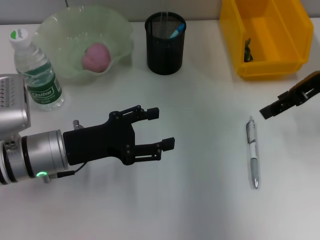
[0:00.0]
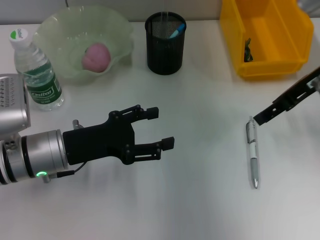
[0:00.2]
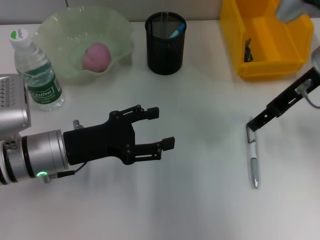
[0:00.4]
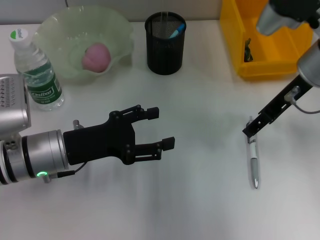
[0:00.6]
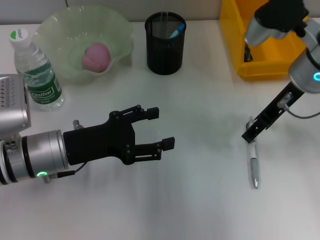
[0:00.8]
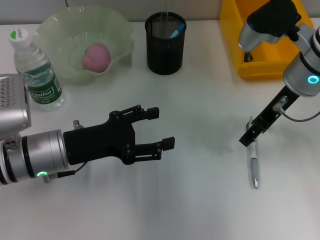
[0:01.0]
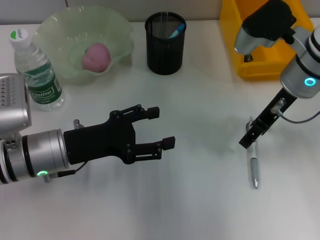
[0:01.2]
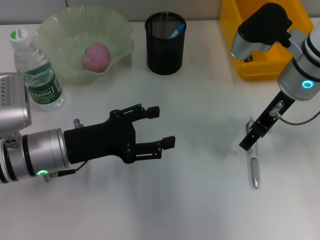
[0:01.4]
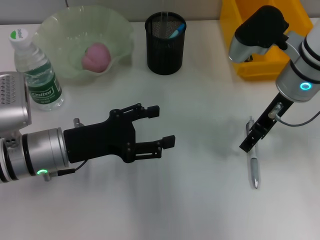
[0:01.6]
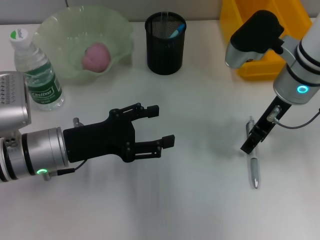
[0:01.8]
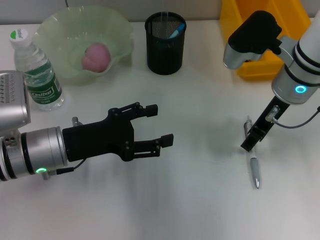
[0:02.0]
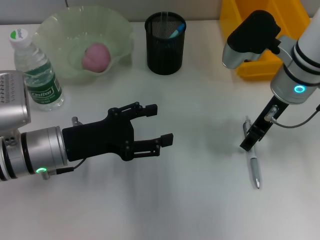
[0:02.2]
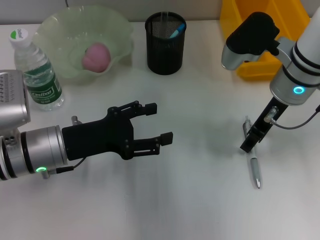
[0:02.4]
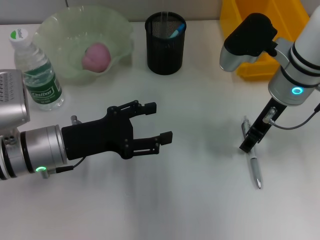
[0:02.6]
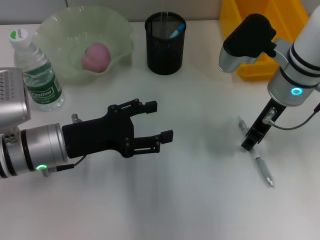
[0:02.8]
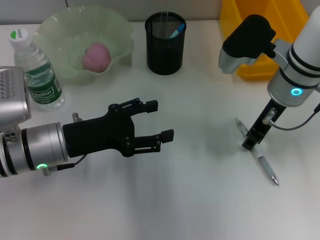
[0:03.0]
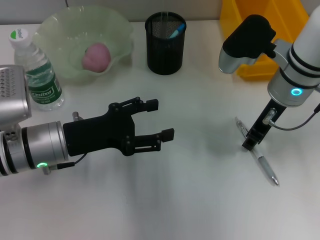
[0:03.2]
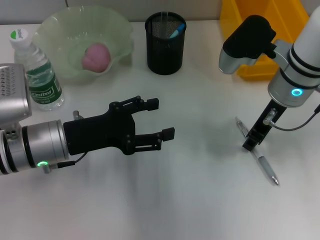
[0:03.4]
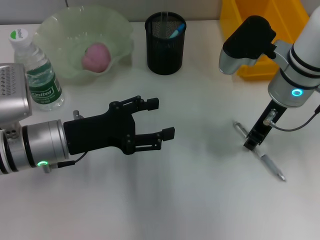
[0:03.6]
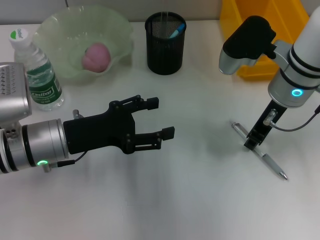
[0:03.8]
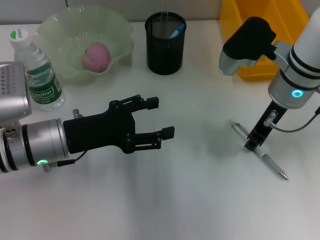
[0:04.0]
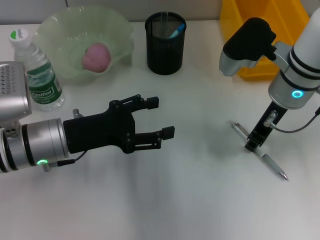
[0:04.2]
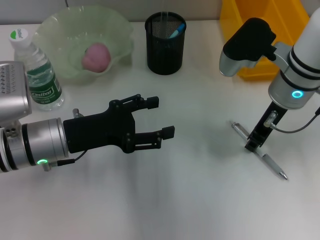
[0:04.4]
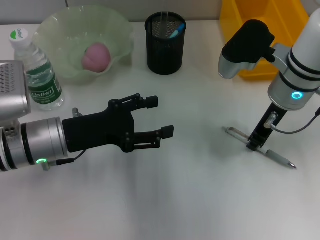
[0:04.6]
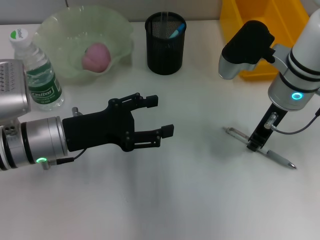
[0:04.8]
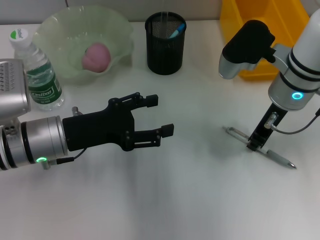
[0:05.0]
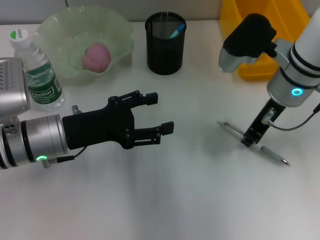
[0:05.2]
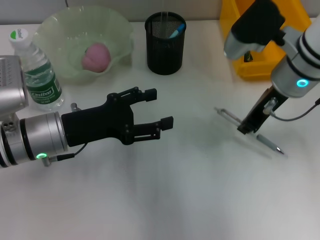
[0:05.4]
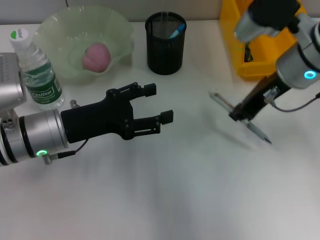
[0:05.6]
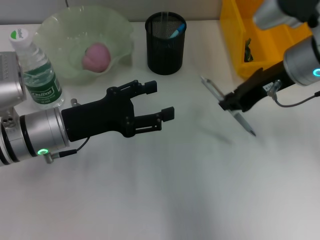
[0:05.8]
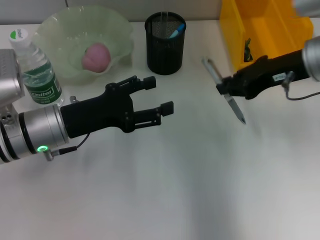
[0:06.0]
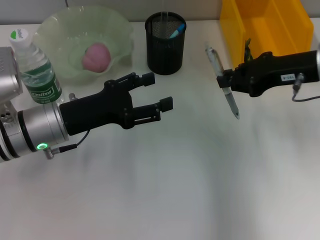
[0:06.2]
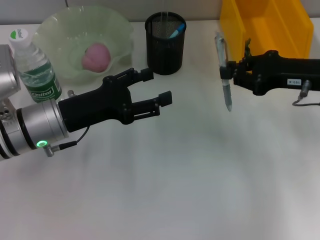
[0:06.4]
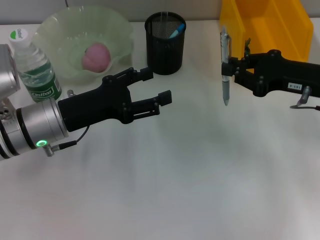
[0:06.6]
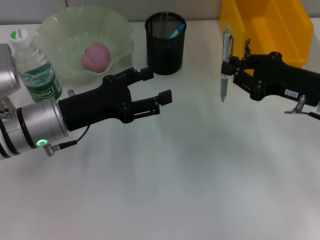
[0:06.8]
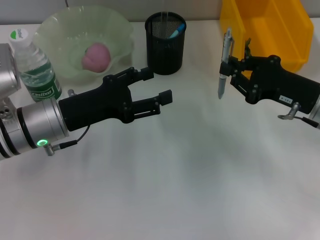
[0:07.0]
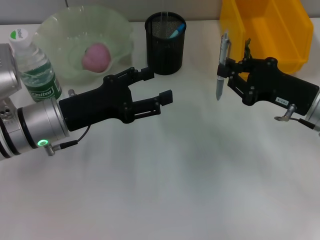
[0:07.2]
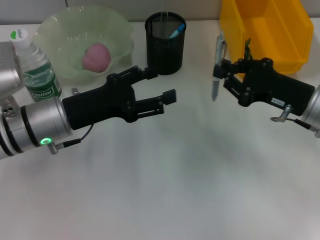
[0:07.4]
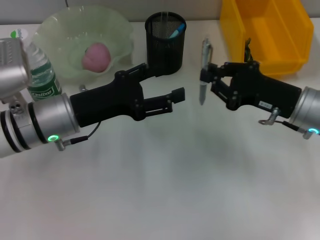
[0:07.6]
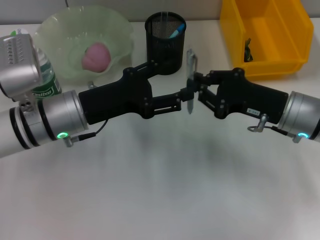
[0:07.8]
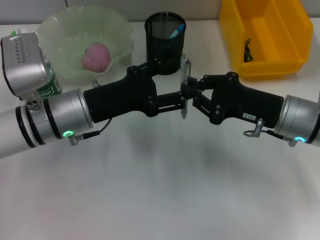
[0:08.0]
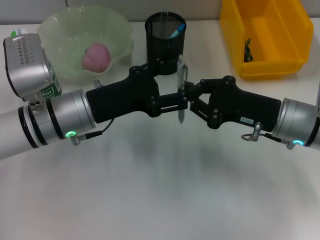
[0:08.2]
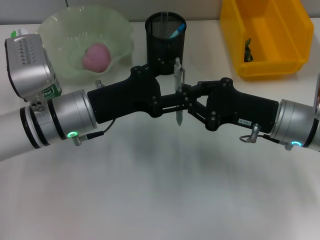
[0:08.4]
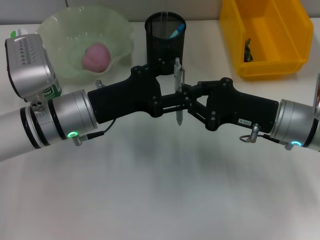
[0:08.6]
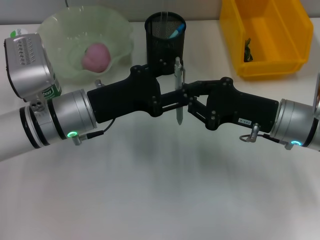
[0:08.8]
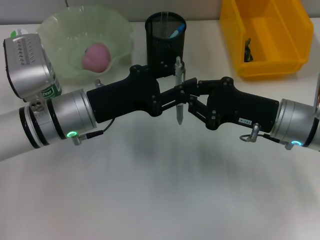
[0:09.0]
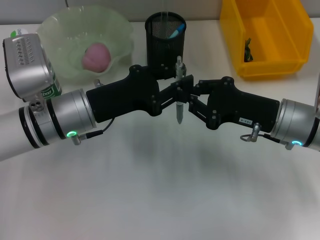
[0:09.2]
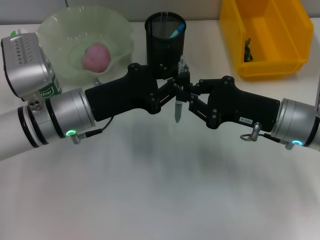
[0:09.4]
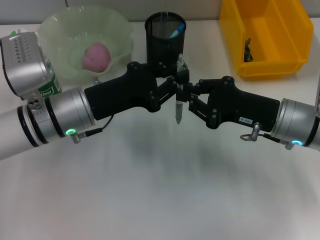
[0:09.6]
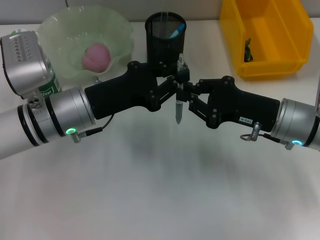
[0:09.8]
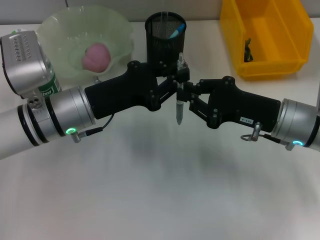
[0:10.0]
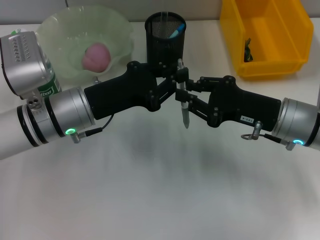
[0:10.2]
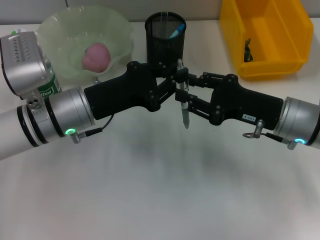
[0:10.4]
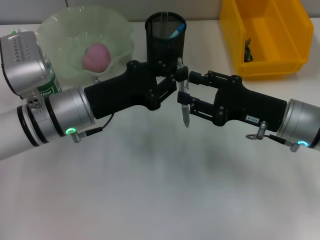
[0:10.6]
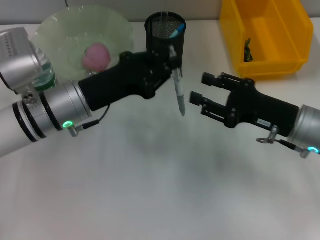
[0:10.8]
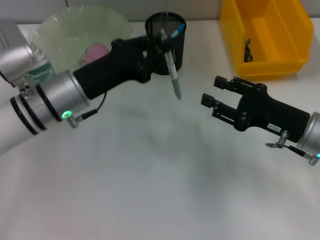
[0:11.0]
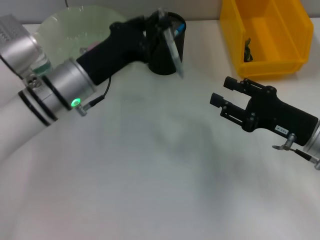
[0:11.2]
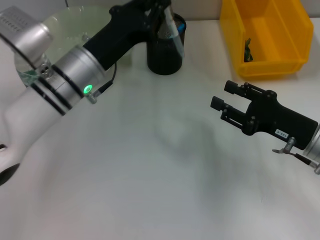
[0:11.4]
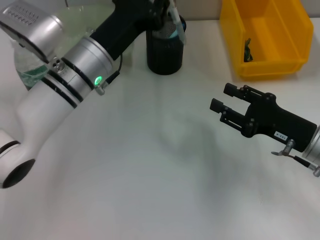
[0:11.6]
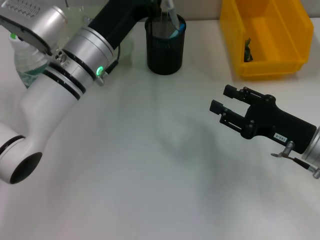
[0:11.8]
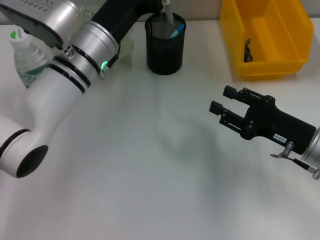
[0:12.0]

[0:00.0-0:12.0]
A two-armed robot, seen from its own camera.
Step, 0:00.0 to 0:04.8: Grab the gray spring-action pen with the right hand.
Step, 0:05.0 to 0:10.6: Pass the gray spring-action pen from the right hand to the left hand.
0:00.0 to 0:01.6: The right gripper is displaced to the left by about 10 cm.
0:01.6 to 0:03.0: The right gripper closes up.
0:03.0 to 0:04.4: Both grippers stay put.
0:04.4 to 0:06.0: The right gripper is displaced to the right by approximately 5 cm.
0:06.0 to 0:07.6: The right gripper travels downward by about 10 cm.
0:07.6 to 0:09.0: The grippers stay close to where they were, moving slightly.
0:09.0 to 0:10.4: The left gripper closes up.
0:10.4 to 0:12.0: The right gripper shifts by about 5 cm, and opens, while the left gripper goes approximately 5 cm forward.

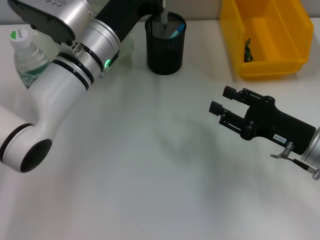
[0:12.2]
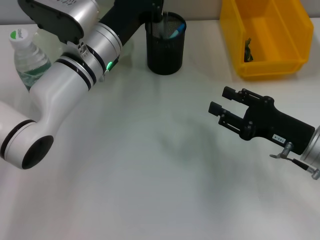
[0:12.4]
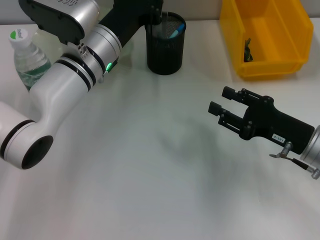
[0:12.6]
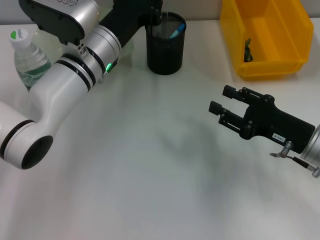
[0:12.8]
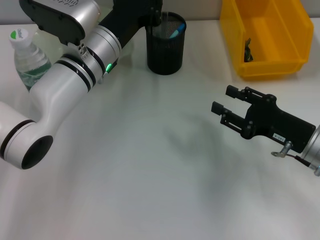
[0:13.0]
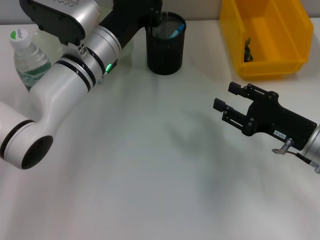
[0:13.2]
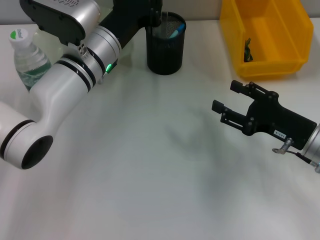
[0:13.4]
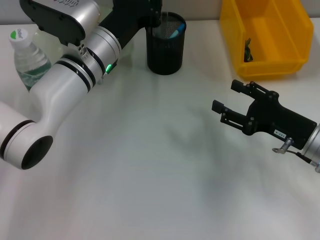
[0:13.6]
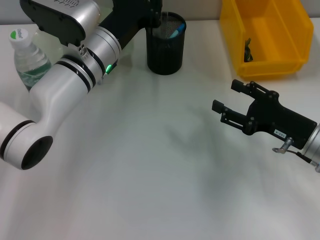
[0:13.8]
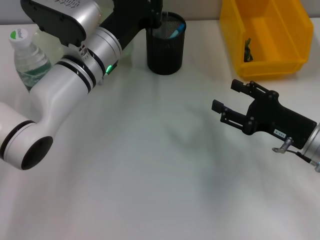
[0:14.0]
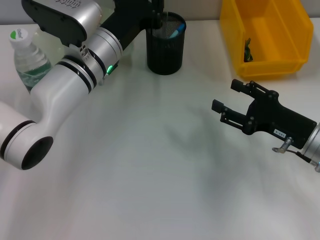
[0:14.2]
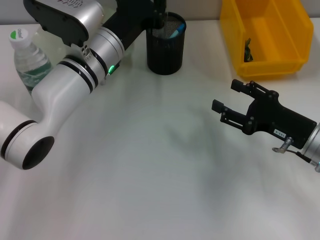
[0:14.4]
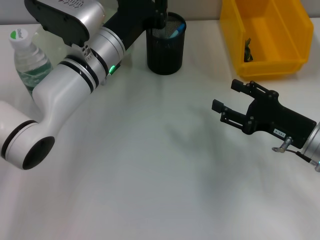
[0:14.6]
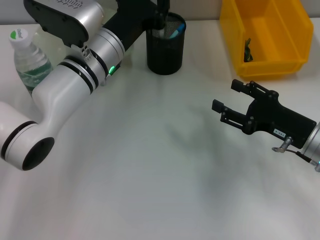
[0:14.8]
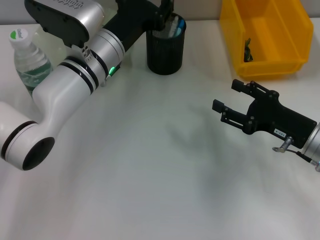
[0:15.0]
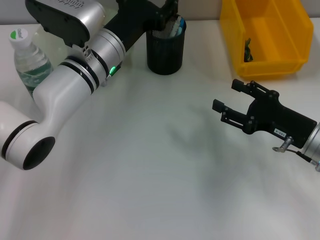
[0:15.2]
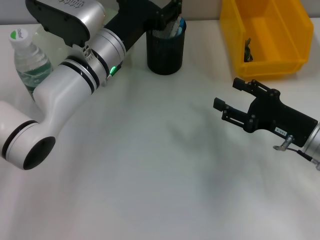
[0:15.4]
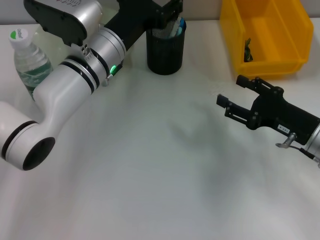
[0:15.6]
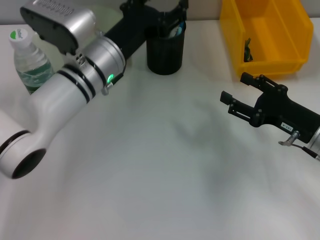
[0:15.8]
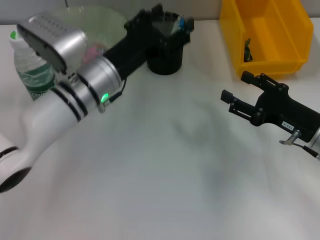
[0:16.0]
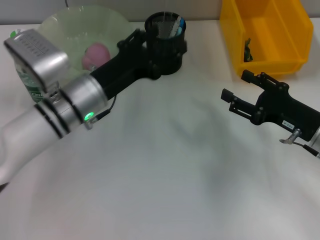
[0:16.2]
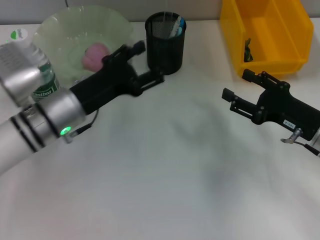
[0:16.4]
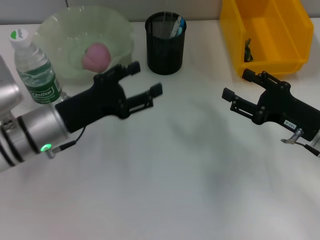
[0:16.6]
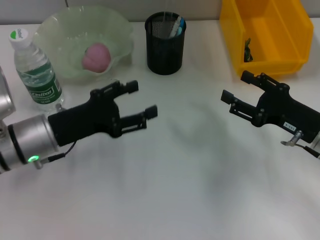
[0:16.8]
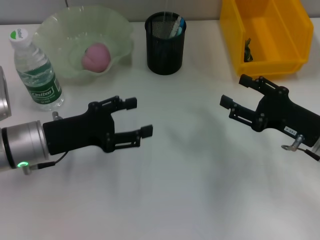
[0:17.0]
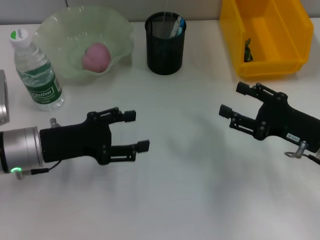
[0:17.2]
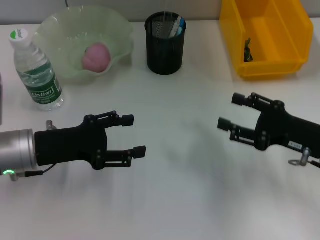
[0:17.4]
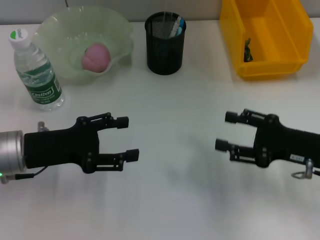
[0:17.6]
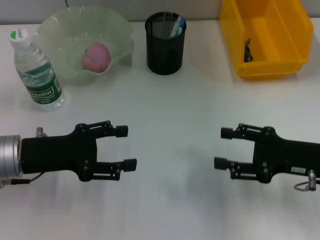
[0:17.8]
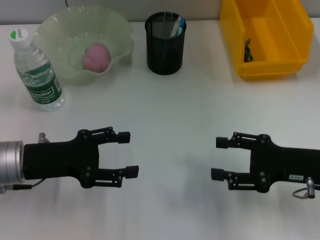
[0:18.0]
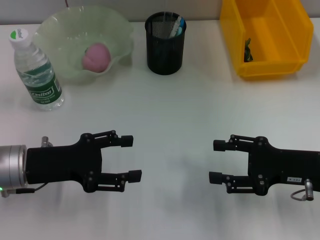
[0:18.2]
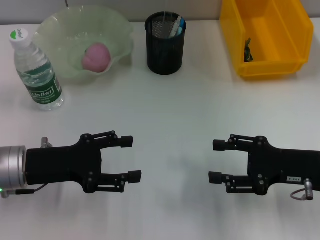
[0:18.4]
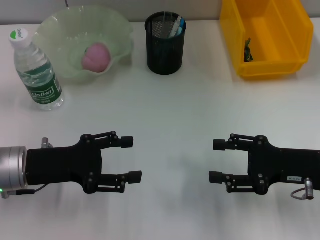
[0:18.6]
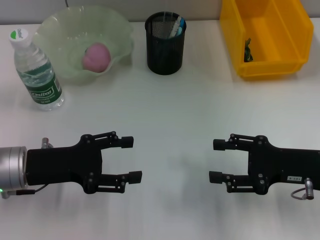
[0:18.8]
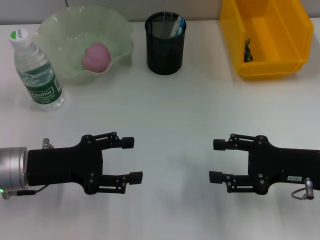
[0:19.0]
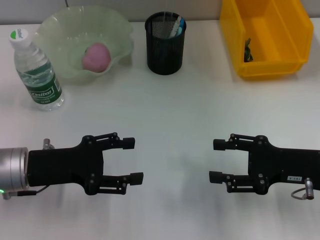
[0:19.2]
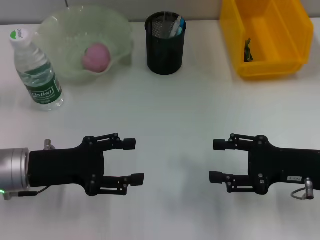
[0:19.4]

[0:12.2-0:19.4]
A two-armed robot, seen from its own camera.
Step, 0:12.2 to 0:15.4: Place the gray spring-action pen into the pen holder with the left hand.
0:12.2 to 0:13.6: There are only small adjustments of the grippers.
0:13.6 to 0:15.0: The two grippers keep their place.
0:15.0 to 0:16.6: The left gripper moves to the left and backward, about 10 cm, and opens up.
0:16.6 to 0:18.0: The left gripper is displaced to the left by approximately 5 cm.
0:18.0 to 0:19.4: The two grippers keep their place.

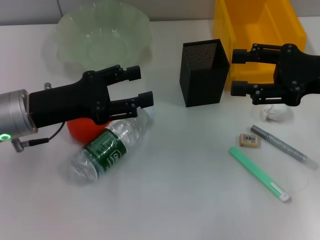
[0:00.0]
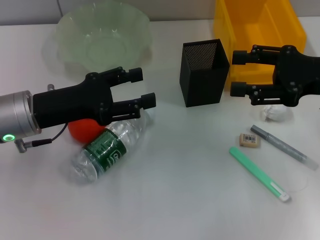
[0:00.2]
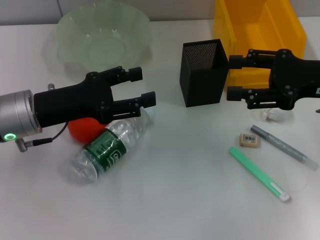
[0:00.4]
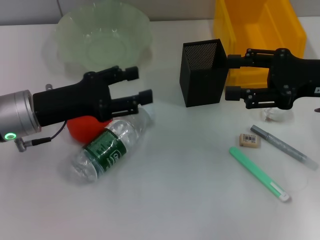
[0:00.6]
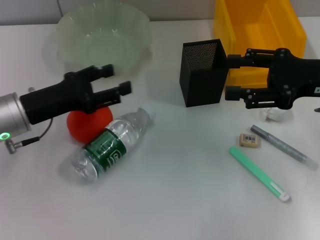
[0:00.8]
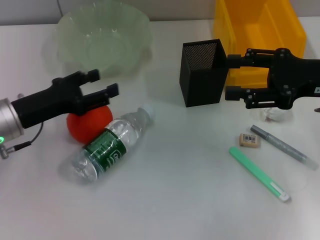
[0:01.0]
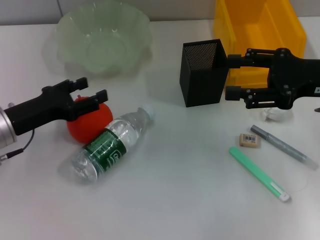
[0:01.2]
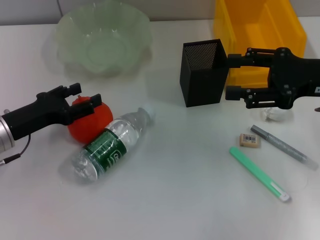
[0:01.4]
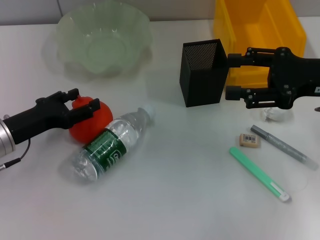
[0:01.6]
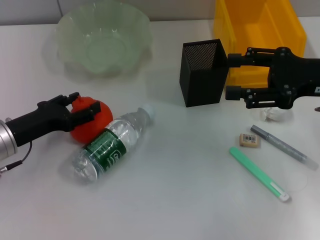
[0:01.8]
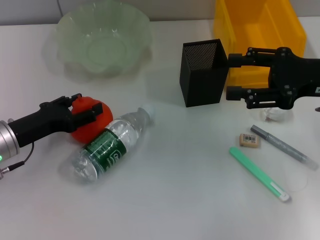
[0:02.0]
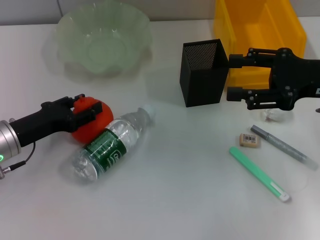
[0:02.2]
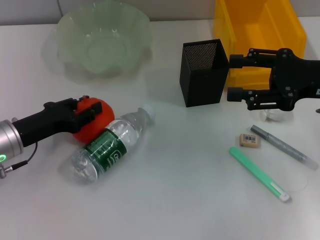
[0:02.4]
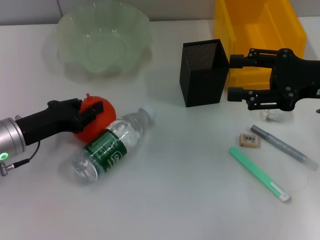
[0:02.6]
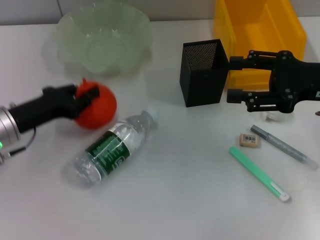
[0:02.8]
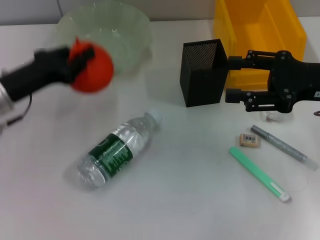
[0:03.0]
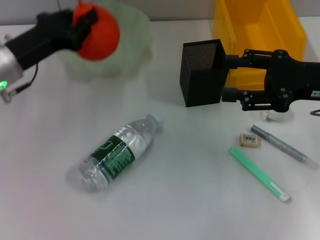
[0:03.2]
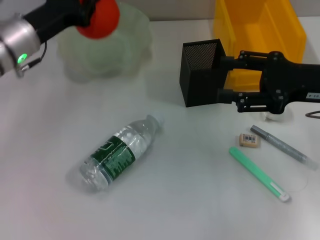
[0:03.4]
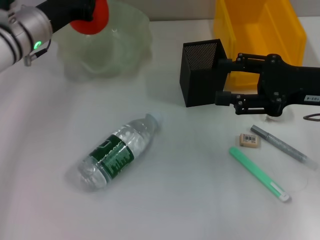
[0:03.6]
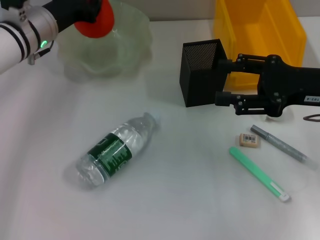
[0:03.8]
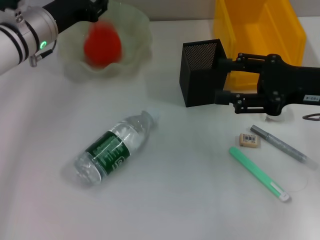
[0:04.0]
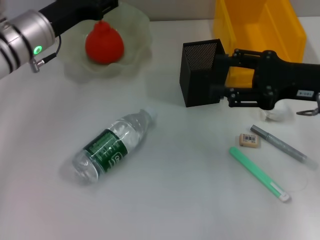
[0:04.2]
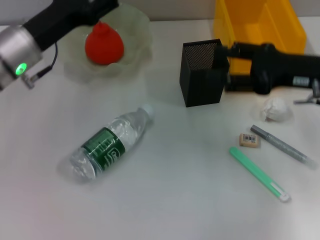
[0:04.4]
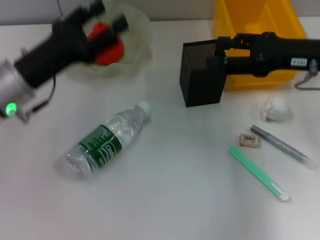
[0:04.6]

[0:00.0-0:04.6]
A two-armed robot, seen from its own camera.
Step, 0:00.0 to 0:02.4: Grab the orange with the left hand.
Step, 0:02.8 to 0:04.0: Place the orange into the fruit bowl with the left hand.
0:00.0 to 0:01.6: The left gripper heads downward and to the left, covering approximately 10 cm.
0:01.6 to 0:03.0: The left gripper changes place by approximately 5 cm, and closes.
0:03.0 to 0:04.6: The left gripper travels forward and back again, some 10 cm each way, and opens its fingers.
